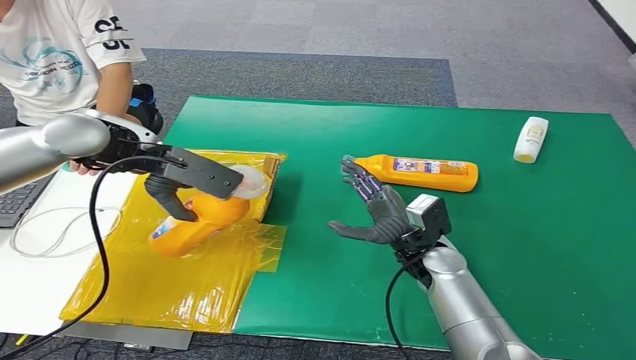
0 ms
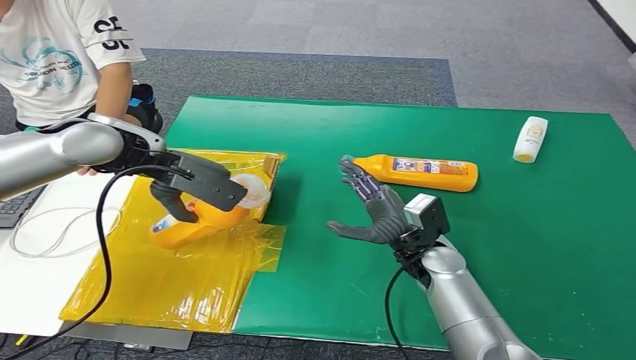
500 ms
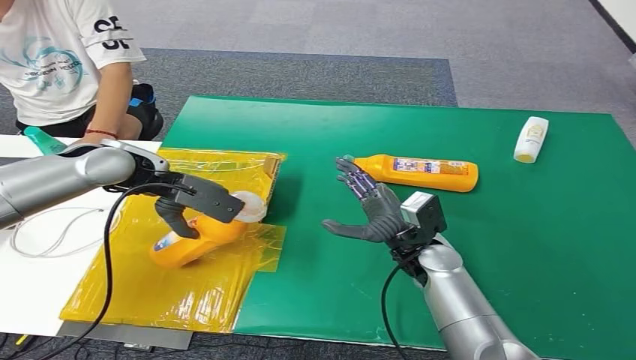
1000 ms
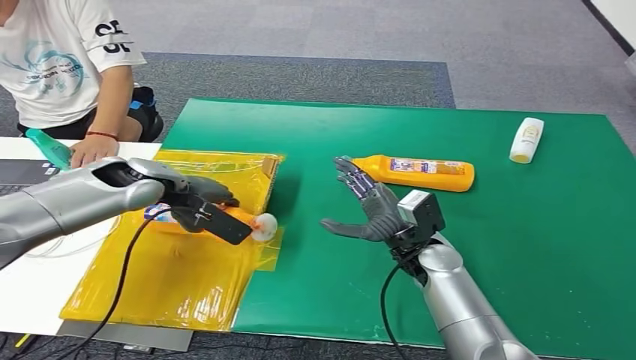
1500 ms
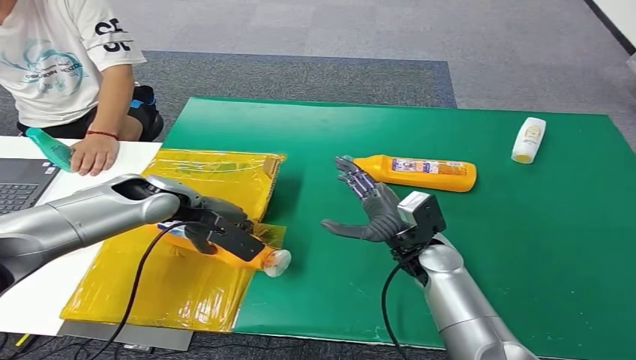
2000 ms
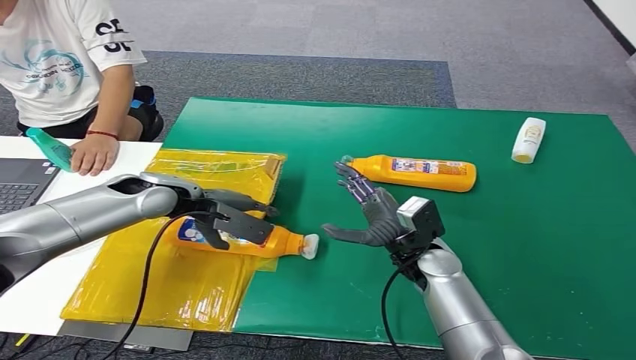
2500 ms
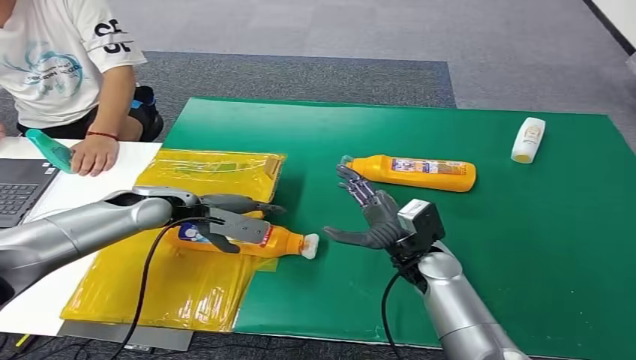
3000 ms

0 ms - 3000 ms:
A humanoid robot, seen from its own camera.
Step, 0 ms - 2500 ms: Turn the bottle to the front side.
0 ms - 1500 ms: The left hand moves downward, about 10 cm.
1500 ms - 3000 ms: The left hand shifts some 5 cm downward.
